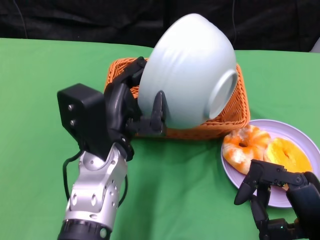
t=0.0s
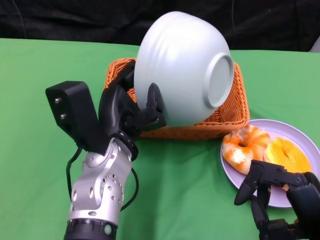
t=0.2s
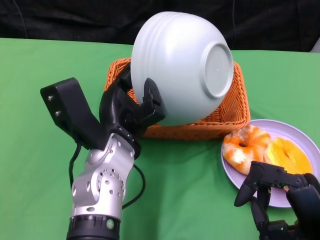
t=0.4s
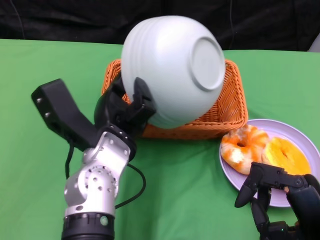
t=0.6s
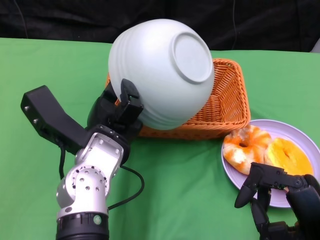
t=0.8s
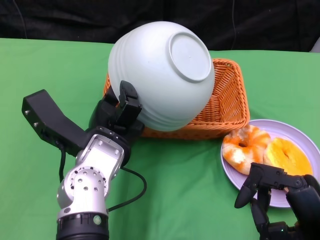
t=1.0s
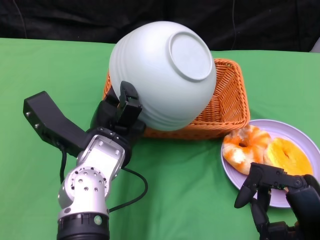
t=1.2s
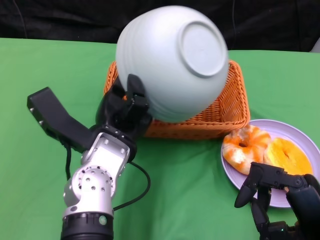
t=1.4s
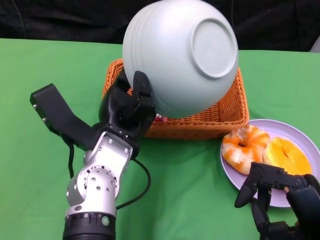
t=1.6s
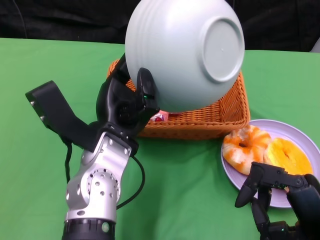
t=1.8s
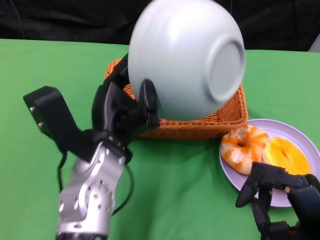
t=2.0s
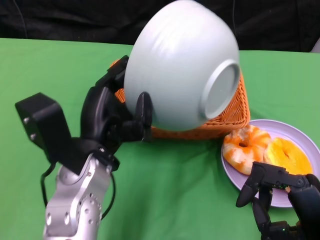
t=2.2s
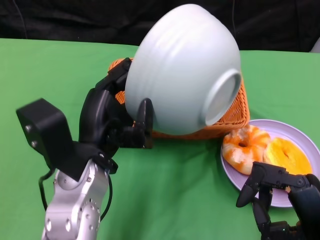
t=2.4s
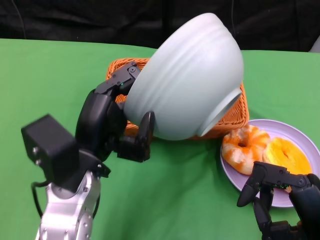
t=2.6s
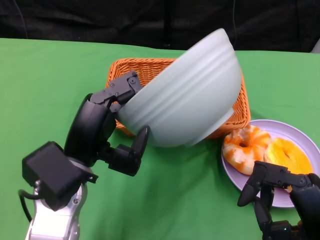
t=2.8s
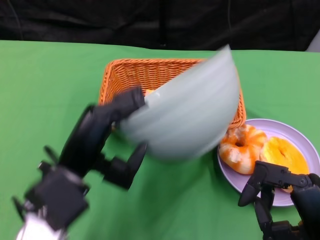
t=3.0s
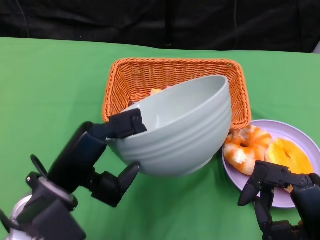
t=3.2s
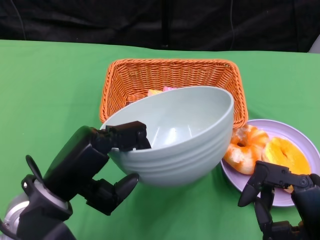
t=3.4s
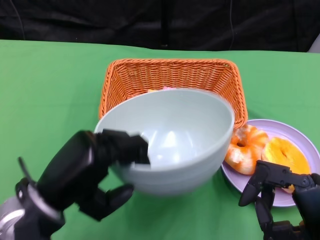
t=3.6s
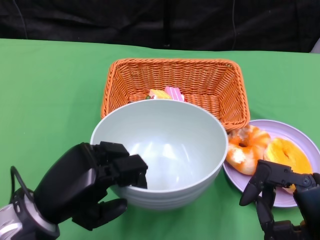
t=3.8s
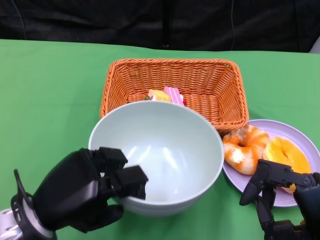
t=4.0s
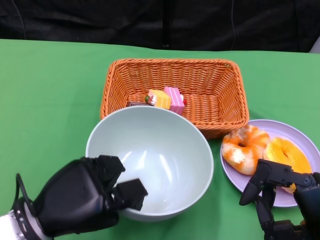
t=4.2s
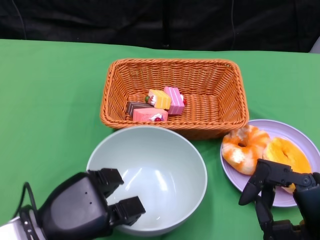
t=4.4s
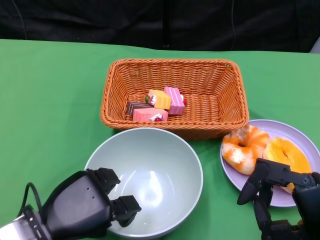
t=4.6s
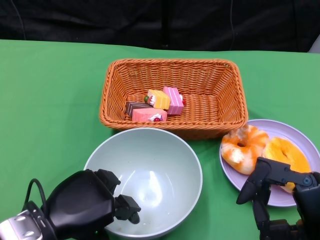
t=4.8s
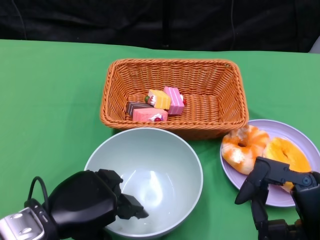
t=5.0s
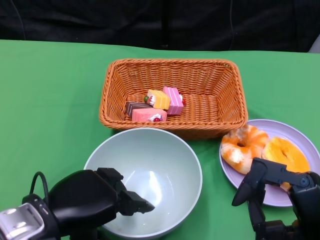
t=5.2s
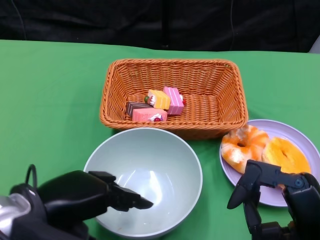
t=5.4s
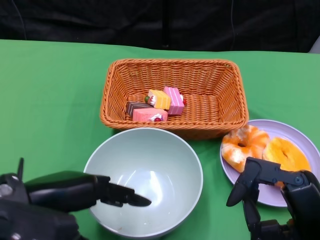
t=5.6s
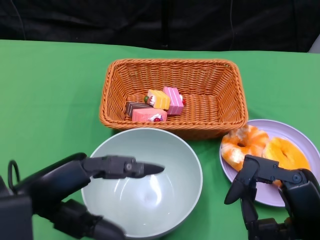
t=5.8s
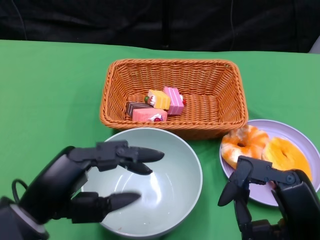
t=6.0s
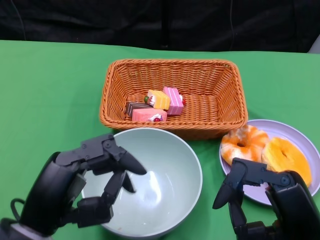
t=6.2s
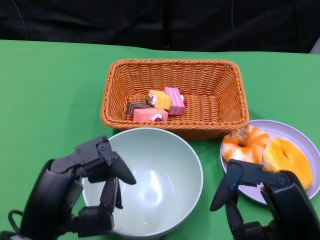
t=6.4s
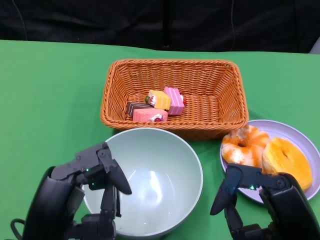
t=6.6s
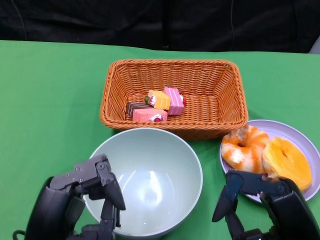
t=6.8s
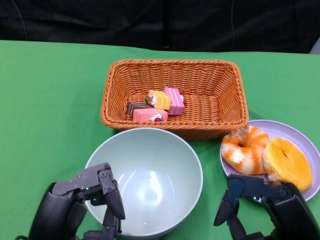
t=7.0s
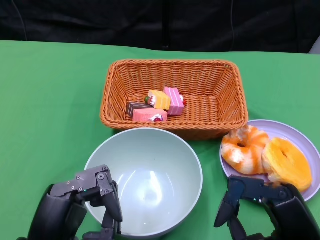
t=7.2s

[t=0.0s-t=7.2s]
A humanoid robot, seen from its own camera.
Step, t=1.4s to t=5.4s: Place the bowl on the table with the left gripper.
t=1.4s to t=2.8s: The left hand moves to the left, approximately 5 cm.
t=2.8s to t=4.4s: The left hand travels downward and to the left by roughly 10 cm.
t=4.4s to t=5.8s: The left hand shifts approximately 10 cm upward.
t=5.8s to t=7.2s: The left hand travels backward and downward by roughly 10 cm.

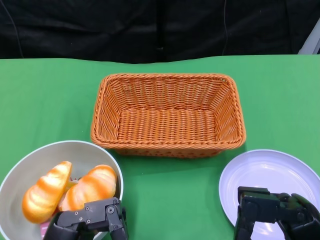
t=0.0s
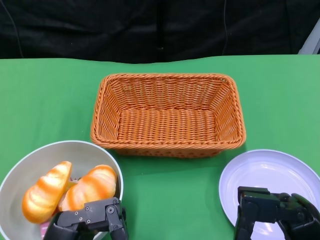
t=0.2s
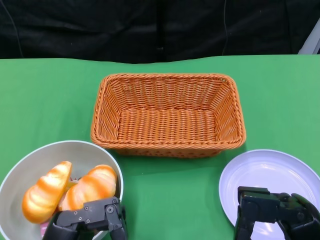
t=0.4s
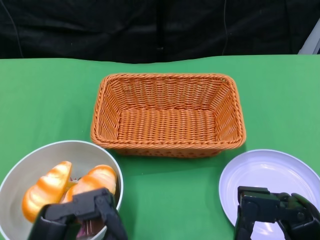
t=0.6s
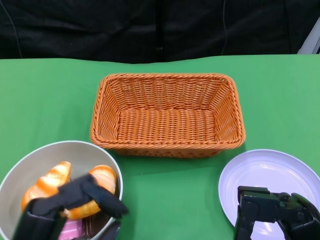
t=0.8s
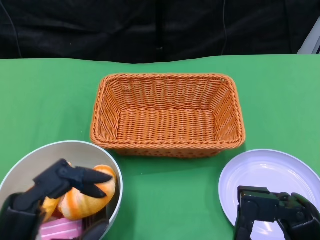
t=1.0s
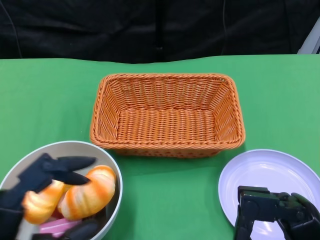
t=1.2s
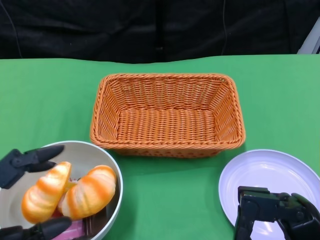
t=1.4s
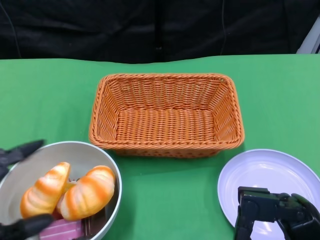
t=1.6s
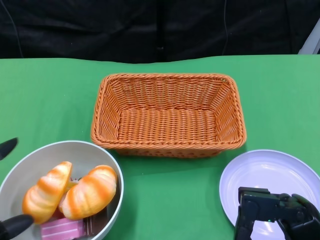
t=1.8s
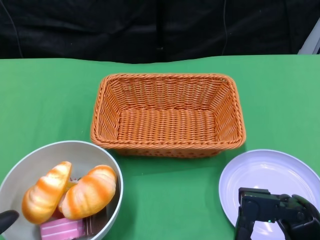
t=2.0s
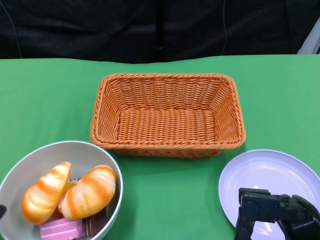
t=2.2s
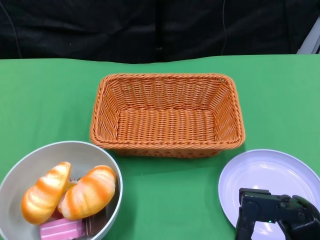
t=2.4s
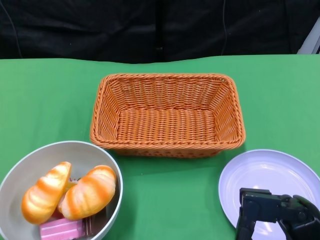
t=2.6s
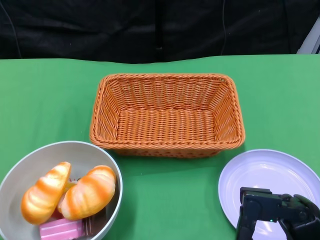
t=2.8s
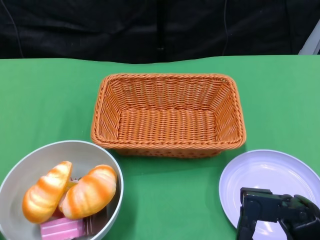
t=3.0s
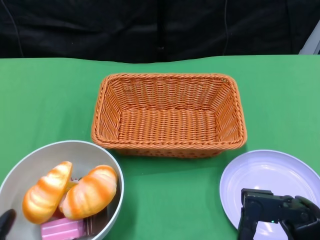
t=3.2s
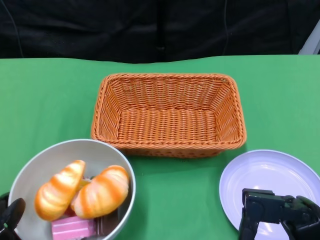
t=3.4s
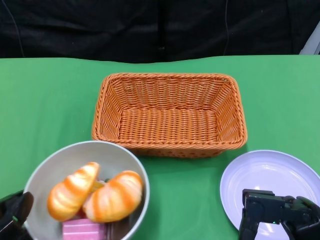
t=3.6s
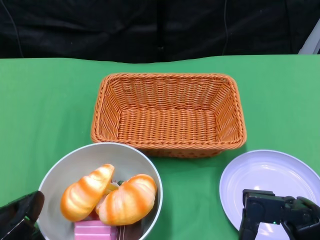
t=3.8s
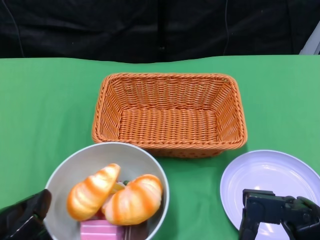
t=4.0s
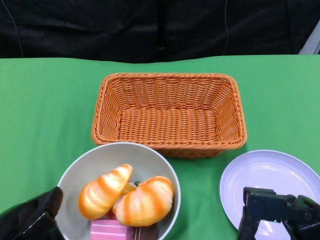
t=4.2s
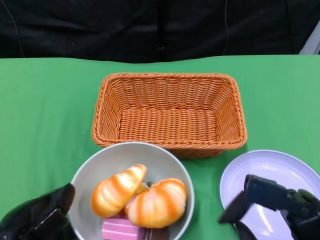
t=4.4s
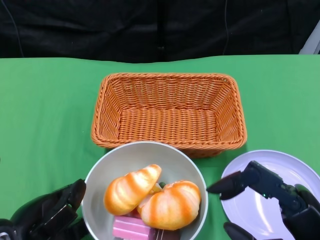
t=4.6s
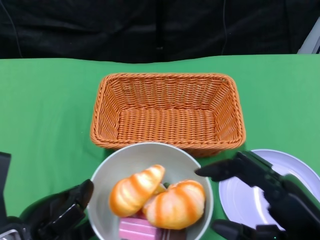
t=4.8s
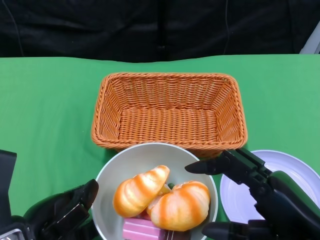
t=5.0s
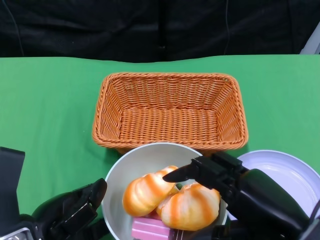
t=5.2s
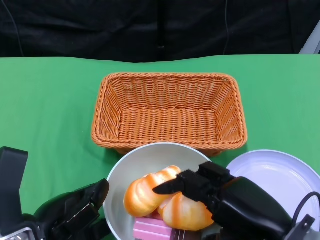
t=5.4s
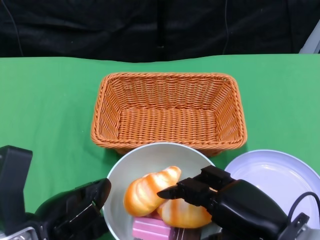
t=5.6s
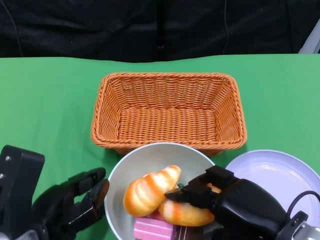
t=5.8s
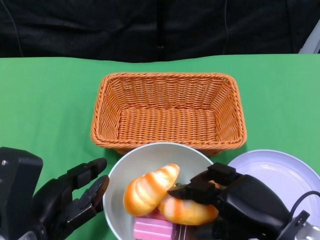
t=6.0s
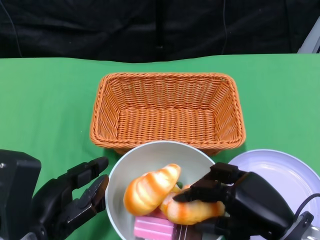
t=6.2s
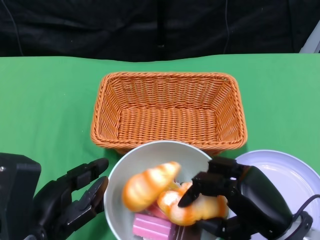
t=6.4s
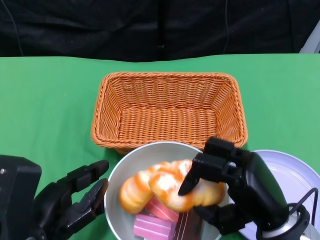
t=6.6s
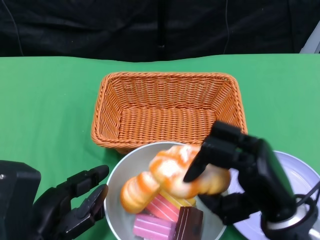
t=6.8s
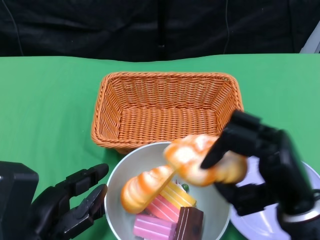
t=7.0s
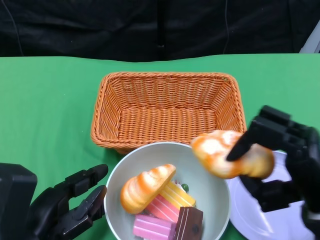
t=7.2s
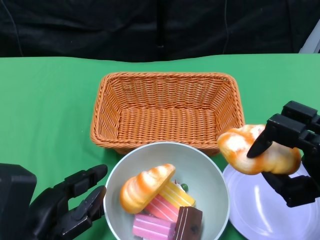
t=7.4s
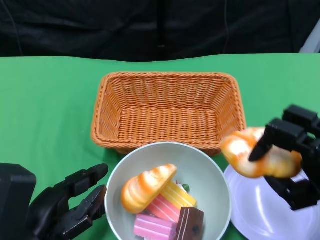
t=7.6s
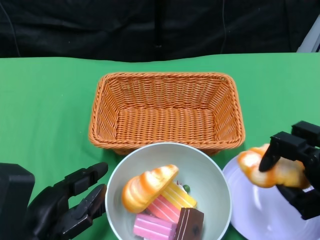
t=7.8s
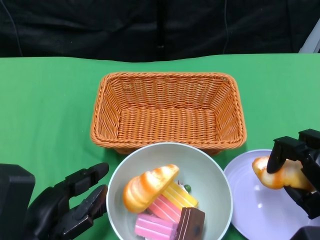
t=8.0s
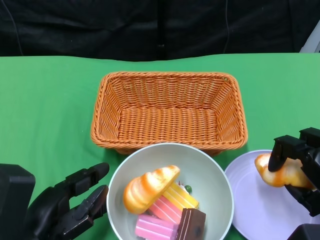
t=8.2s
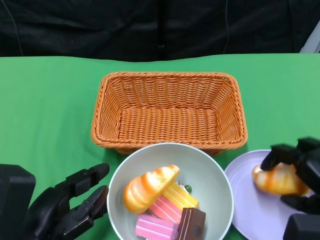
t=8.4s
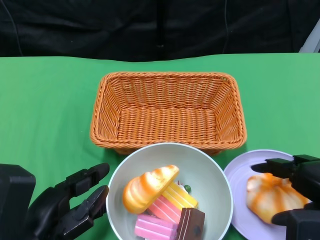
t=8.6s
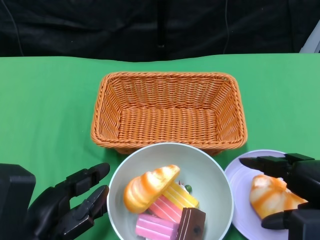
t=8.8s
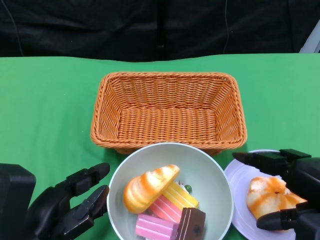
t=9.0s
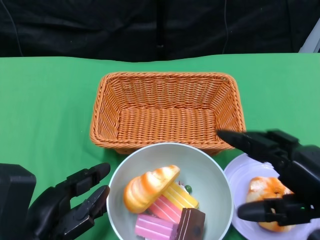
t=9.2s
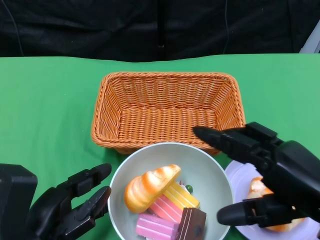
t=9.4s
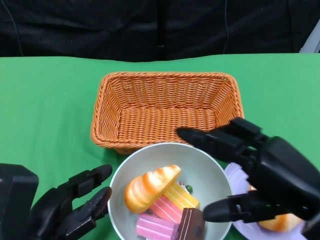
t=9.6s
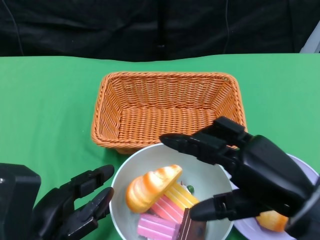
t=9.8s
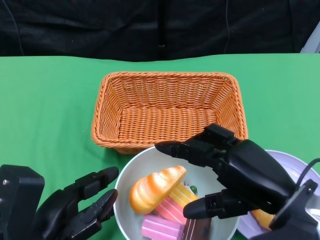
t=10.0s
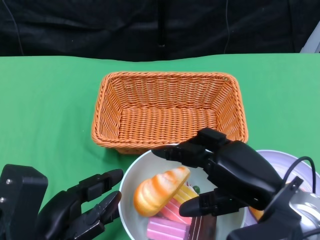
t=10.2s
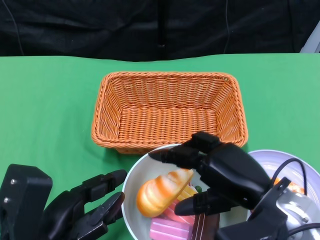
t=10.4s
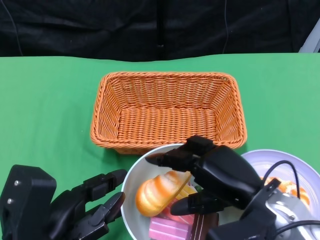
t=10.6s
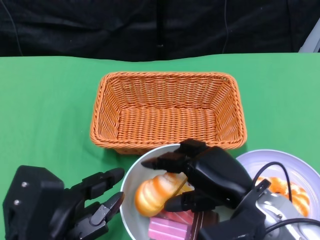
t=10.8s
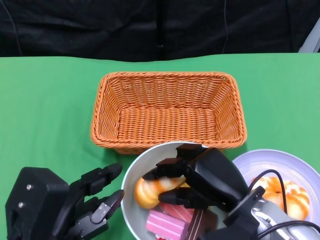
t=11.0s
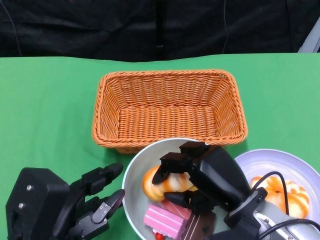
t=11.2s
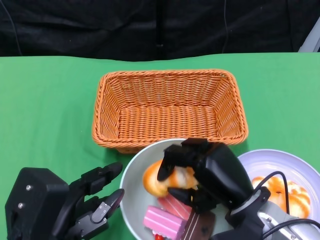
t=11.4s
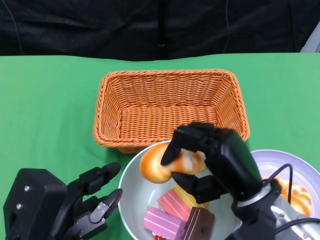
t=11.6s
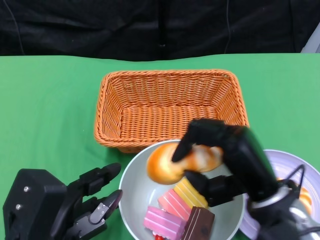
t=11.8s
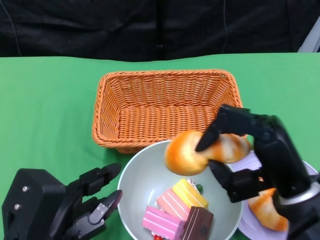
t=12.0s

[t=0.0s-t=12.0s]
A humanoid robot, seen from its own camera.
Step, t=0.0s to t=5.4s: Push the bowl to the center of the table using the left gripper.
t=3.0s to t=4.4s: The left hand shifts roughly 10 cm to the right and forward.
t=4.4s to t=6.0s: The right hand travels forward by about 5 cm.
t=6.0s to t=7.6s: The right hand travels to the right by about 5 cm.
t=9.0s to t=10.4s: The right hand goes some 10 cm to the left.

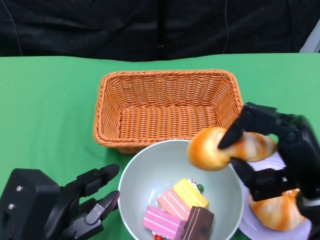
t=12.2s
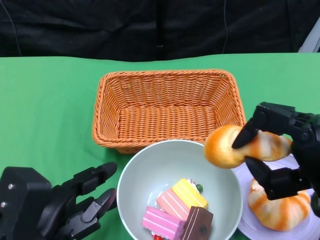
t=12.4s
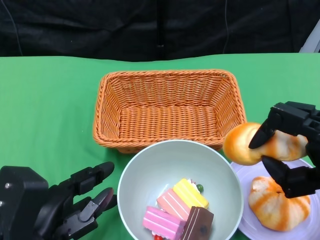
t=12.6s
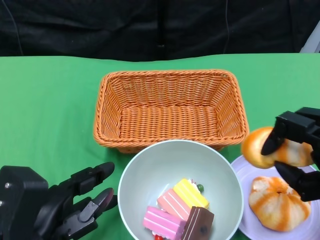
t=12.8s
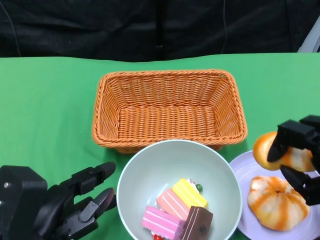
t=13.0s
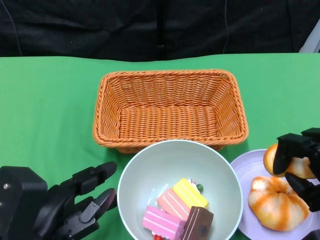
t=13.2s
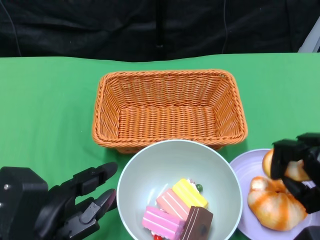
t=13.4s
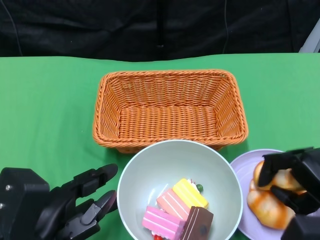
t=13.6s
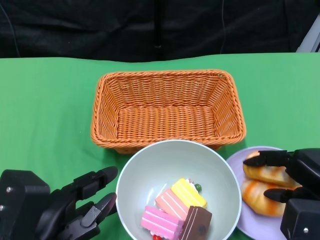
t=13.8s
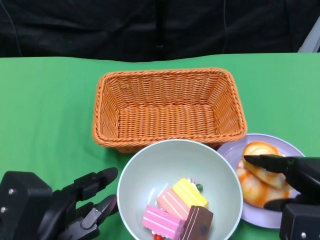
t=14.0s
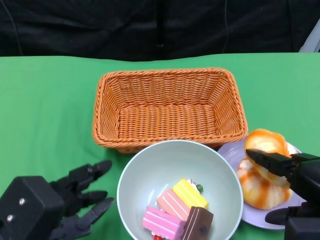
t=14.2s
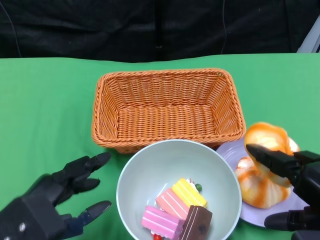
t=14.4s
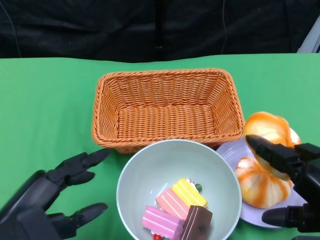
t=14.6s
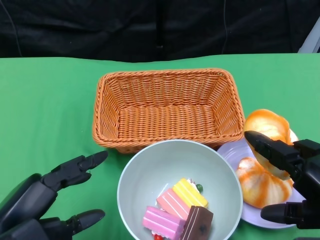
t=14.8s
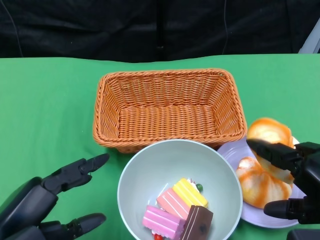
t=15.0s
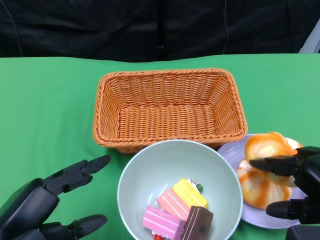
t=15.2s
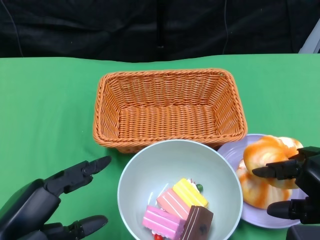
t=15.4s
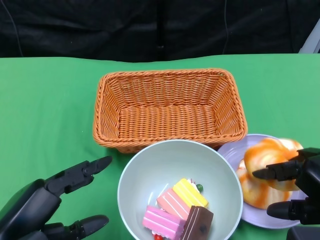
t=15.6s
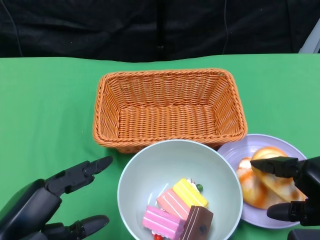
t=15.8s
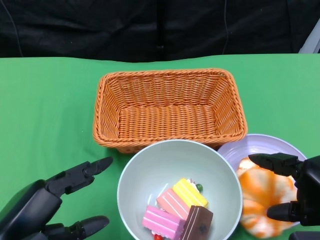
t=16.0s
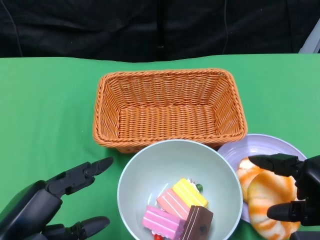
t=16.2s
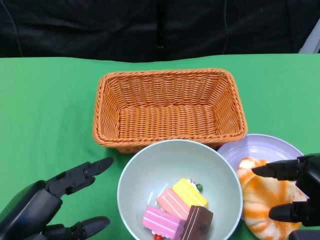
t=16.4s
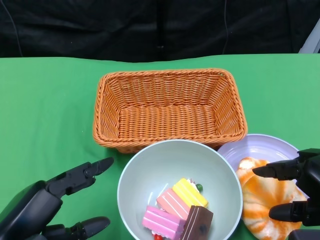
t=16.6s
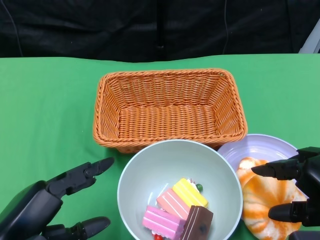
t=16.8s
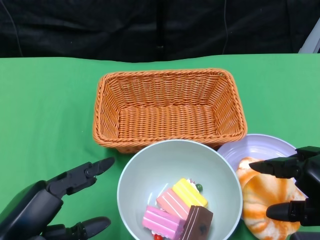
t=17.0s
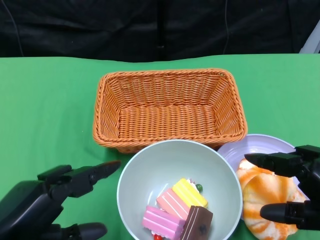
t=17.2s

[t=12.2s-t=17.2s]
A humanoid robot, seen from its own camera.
Step, t=12.2s to t=16.4s: Pick up the bread with the right gripper and place it on the plate.
t=12.2s to t=13.8s: The right hand is displaced to the right by roughly 5 cm.
t=13.8s to t=15.6s: The left hand moves about 5 cm, while the right hand ends up roughly 5 cm from where it was.
t=15.6s to t=17.2s: The hands stay close to where they were, moving slightly.
